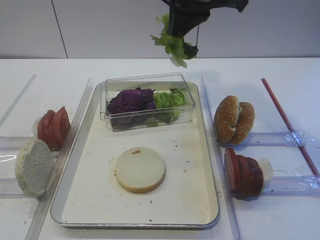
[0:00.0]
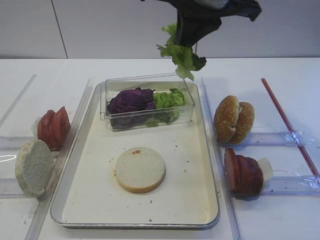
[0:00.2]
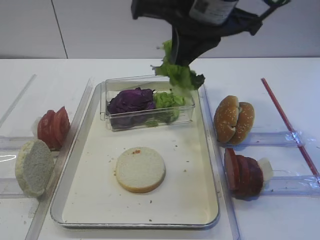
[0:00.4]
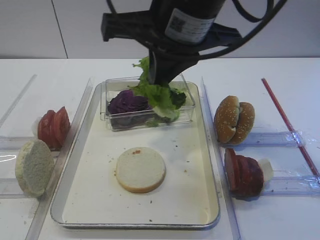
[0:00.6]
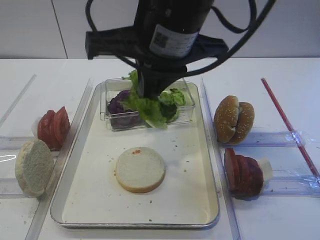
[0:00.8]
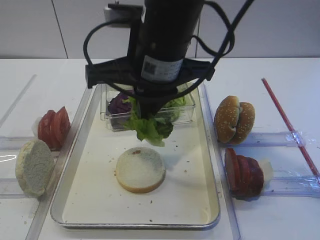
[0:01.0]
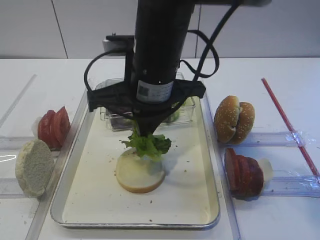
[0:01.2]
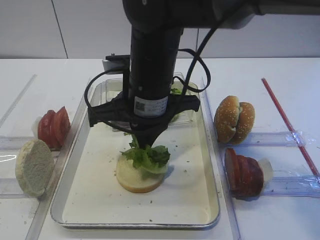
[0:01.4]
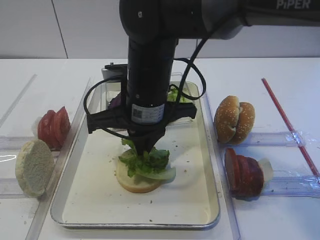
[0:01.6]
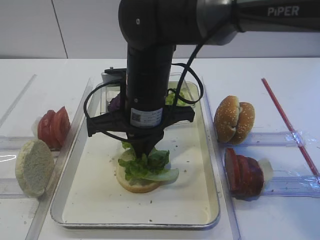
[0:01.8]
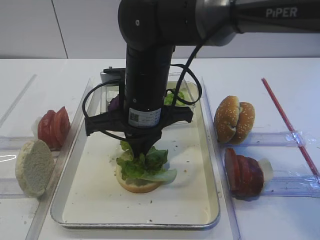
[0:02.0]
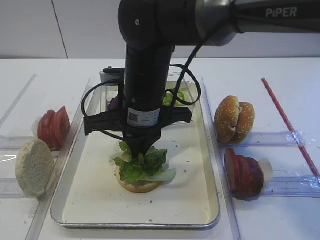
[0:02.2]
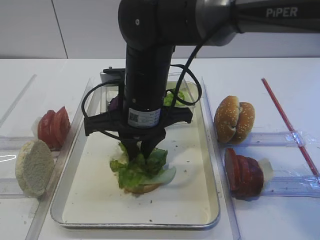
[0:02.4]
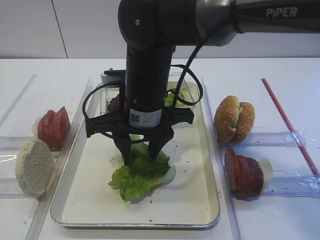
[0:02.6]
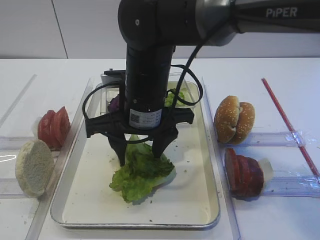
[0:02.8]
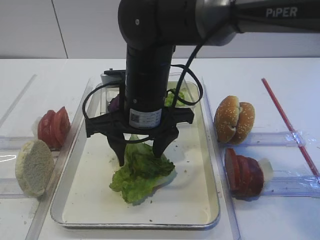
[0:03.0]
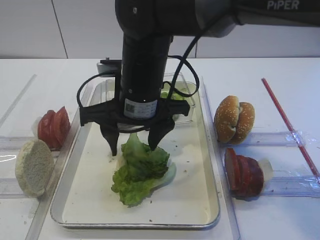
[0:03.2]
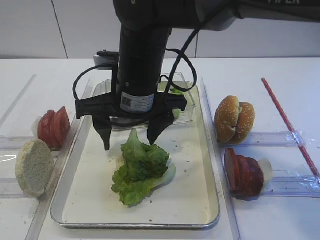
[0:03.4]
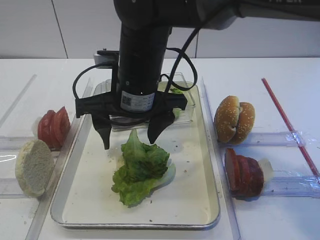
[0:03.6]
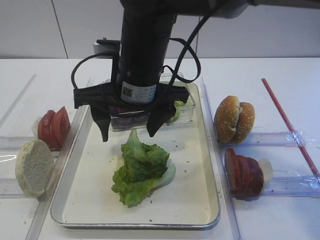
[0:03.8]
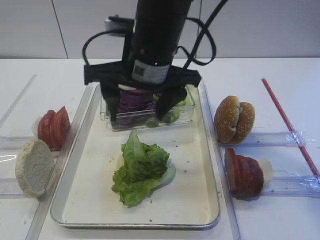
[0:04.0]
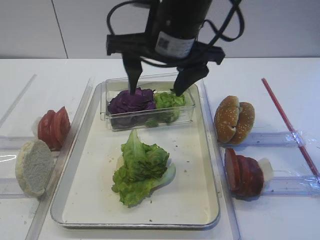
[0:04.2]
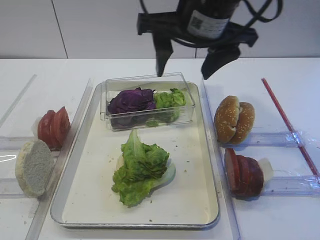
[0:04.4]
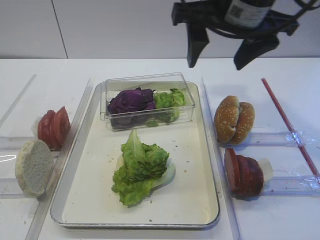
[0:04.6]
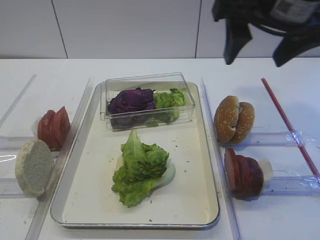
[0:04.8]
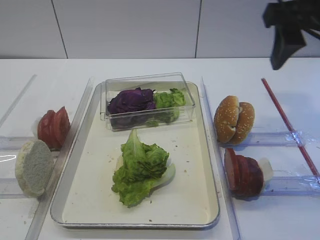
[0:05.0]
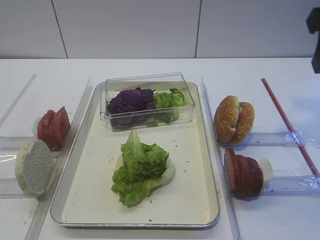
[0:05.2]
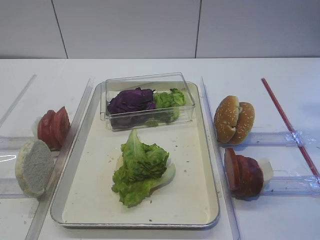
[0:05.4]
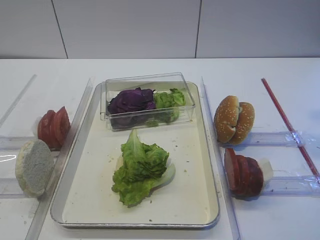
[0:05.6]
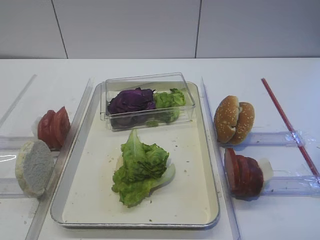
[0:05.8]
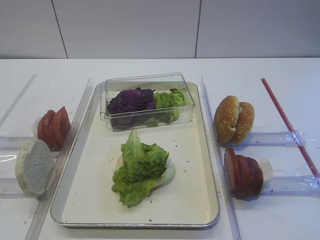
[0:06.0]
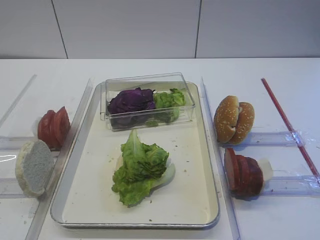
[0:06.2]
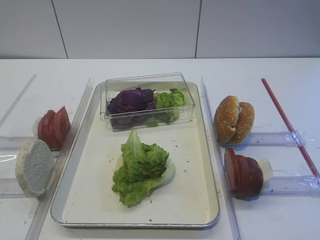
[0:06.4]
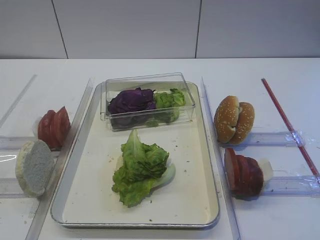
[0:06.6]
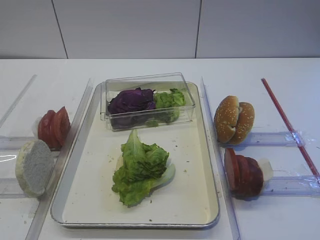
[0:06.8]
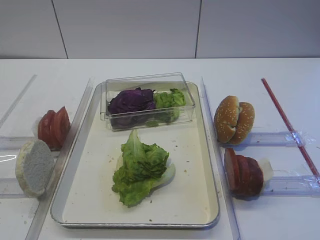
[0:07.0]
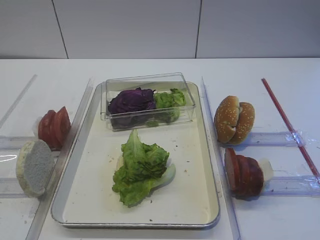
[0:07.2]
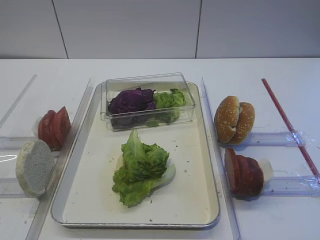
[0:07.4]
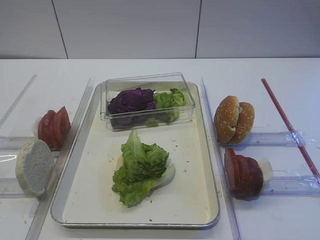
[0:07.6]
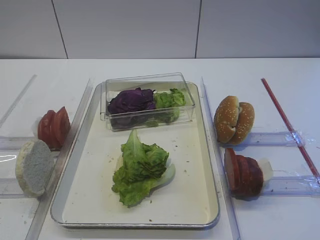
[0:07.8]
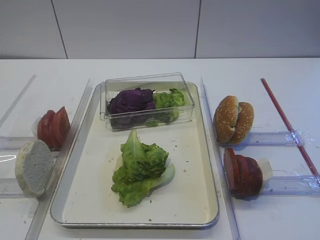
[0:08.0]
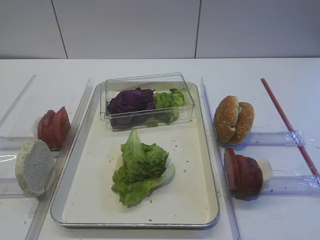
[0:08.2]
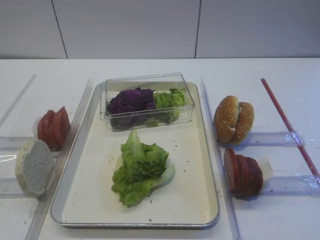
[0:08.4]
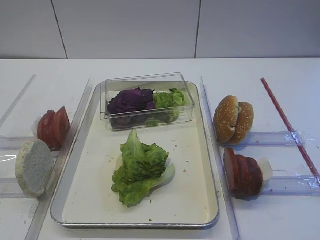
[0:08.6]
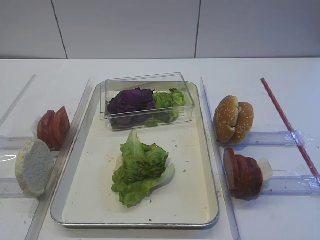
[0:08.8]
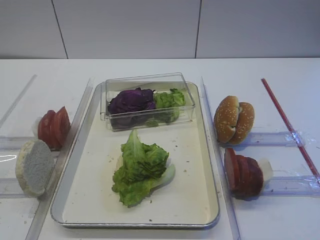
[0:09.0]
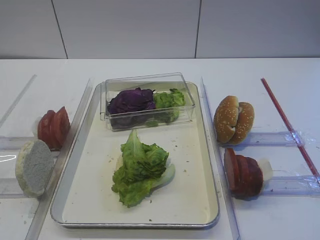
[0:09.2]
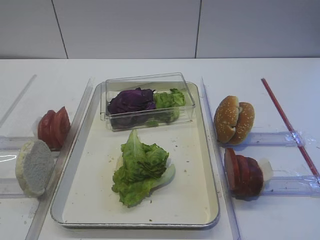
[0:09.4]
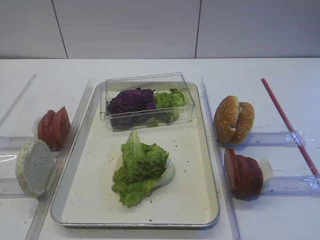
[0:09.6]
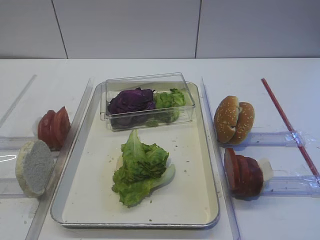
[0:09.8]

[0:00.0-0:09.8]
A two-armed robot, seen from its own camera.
Step, 0:00.0 to 0:03.2: Place the lettuce leaf on the bread slice with the right gripper.
0:00.0 to 0:01.4: The right gripper shifts roughly 15 cm downward, to the left and backward.
0:01.4 to 0:02.8: The right gripper opens up.
0:02.8 to 0:04.2: The right gripper is displaced upward by roughly 10 cm.
0:04.2 to 0:05.6: The right gripper goes approximately 25 cm to the right and backward.

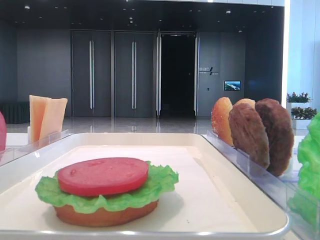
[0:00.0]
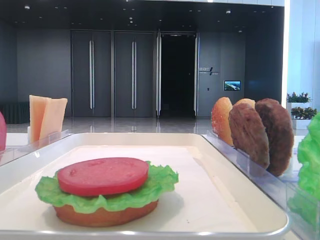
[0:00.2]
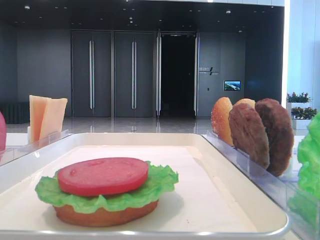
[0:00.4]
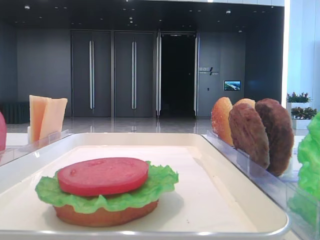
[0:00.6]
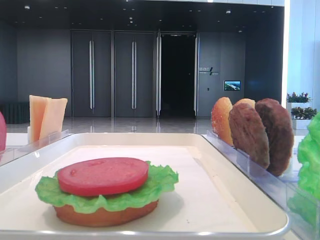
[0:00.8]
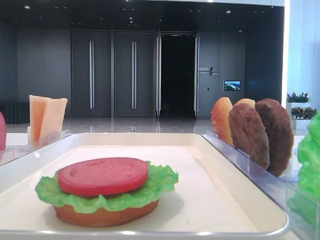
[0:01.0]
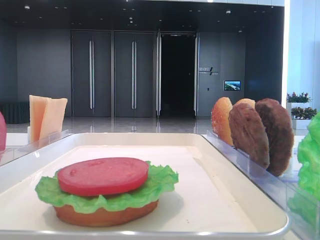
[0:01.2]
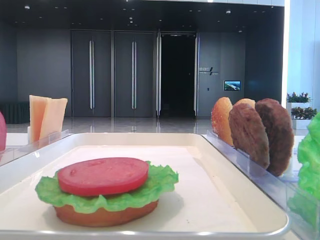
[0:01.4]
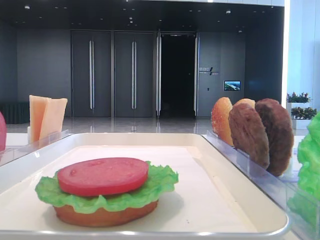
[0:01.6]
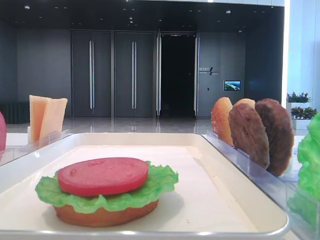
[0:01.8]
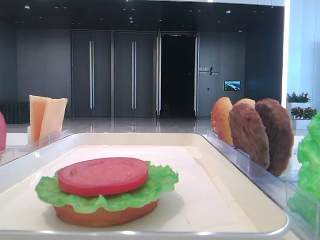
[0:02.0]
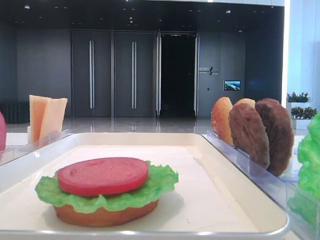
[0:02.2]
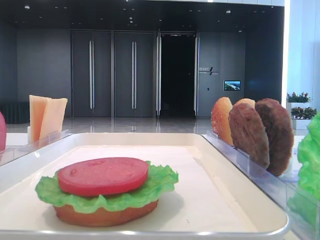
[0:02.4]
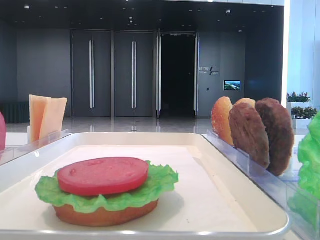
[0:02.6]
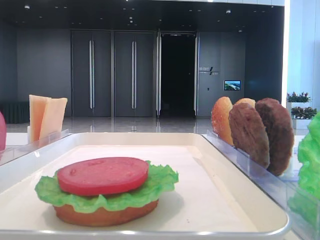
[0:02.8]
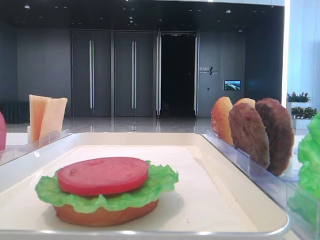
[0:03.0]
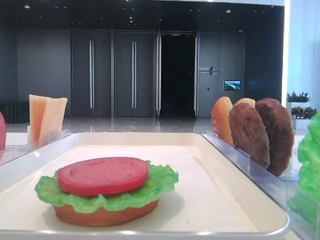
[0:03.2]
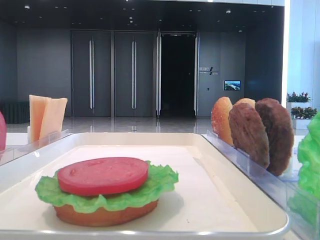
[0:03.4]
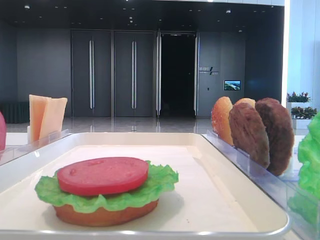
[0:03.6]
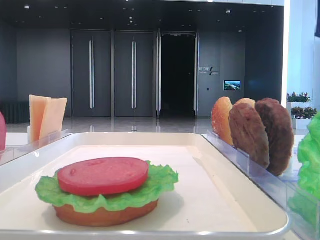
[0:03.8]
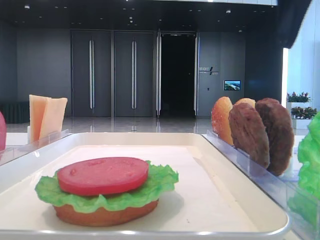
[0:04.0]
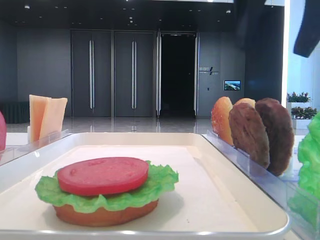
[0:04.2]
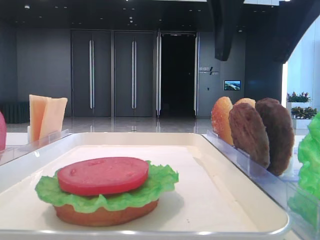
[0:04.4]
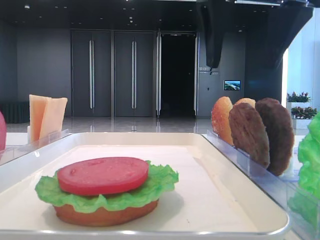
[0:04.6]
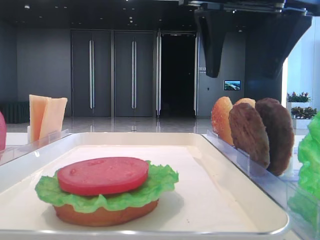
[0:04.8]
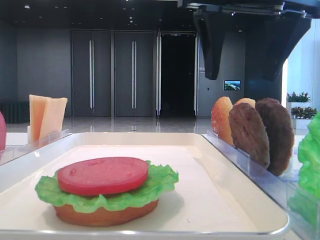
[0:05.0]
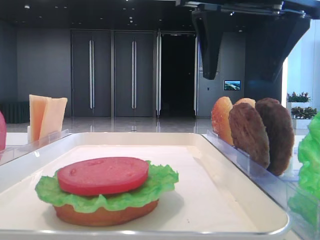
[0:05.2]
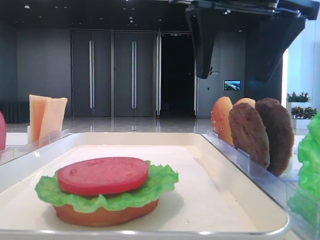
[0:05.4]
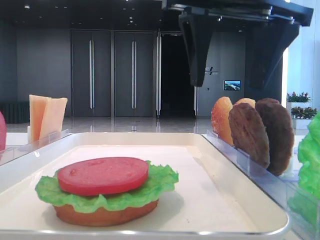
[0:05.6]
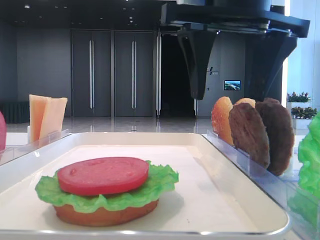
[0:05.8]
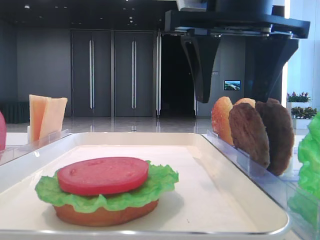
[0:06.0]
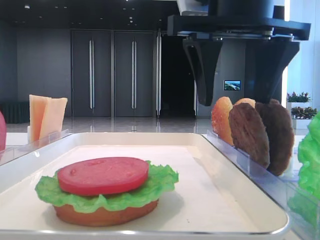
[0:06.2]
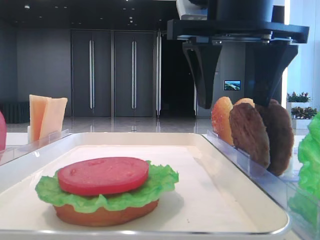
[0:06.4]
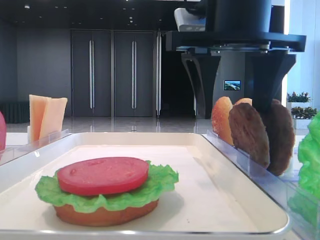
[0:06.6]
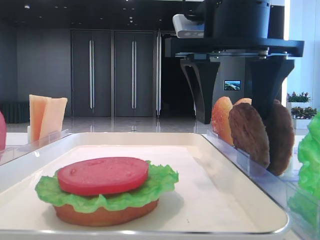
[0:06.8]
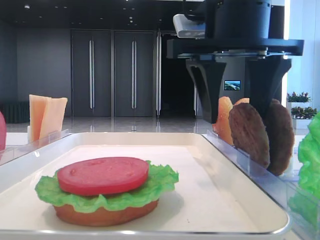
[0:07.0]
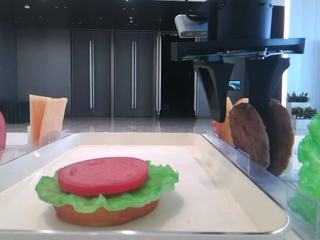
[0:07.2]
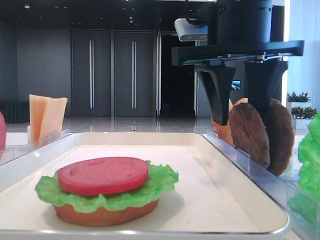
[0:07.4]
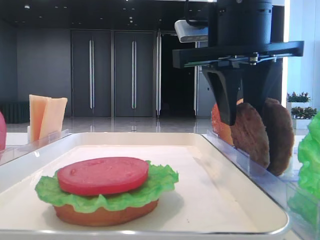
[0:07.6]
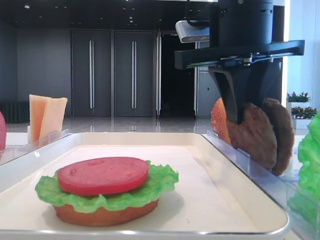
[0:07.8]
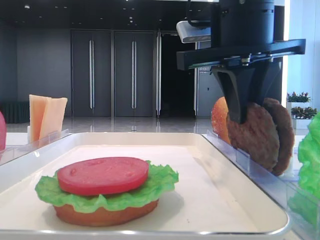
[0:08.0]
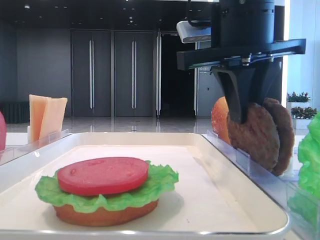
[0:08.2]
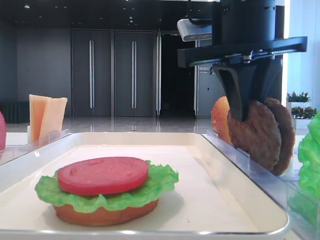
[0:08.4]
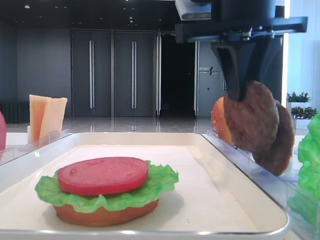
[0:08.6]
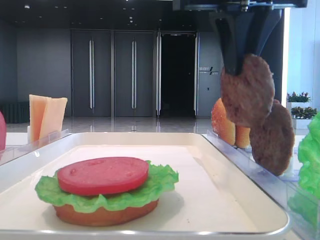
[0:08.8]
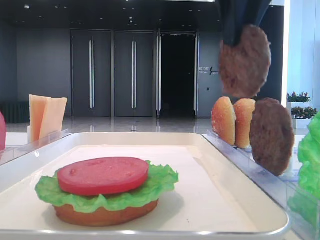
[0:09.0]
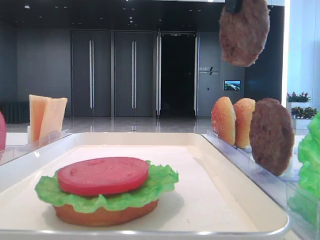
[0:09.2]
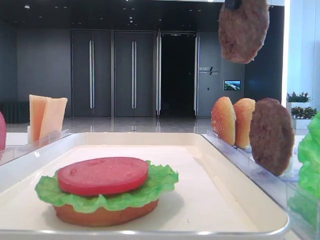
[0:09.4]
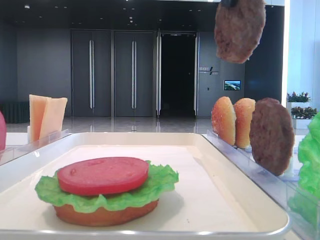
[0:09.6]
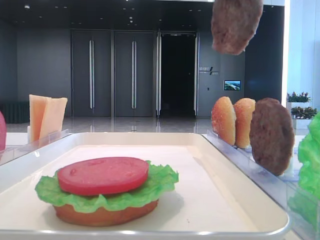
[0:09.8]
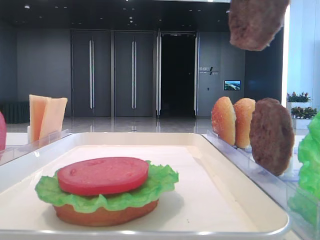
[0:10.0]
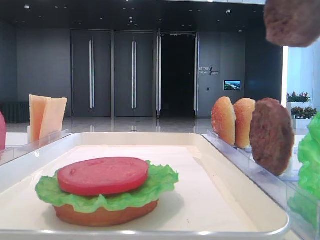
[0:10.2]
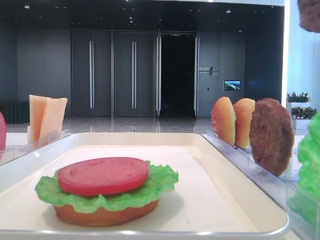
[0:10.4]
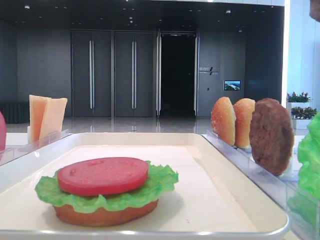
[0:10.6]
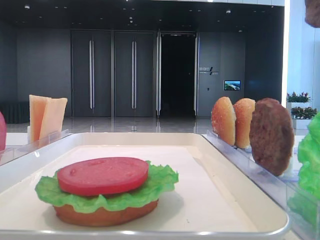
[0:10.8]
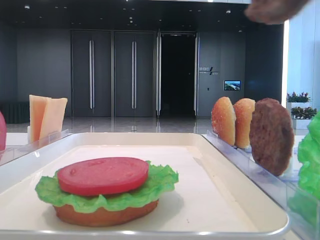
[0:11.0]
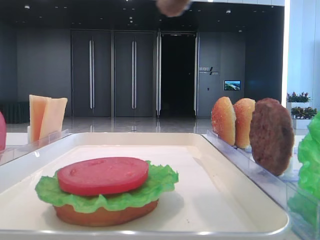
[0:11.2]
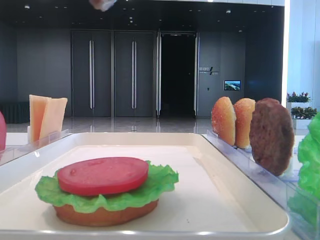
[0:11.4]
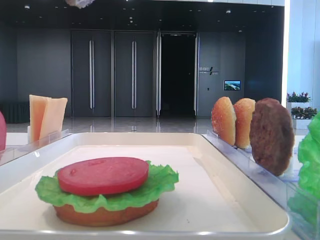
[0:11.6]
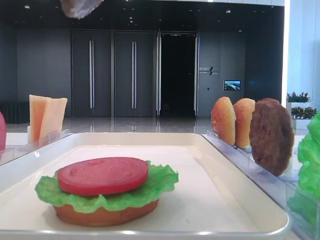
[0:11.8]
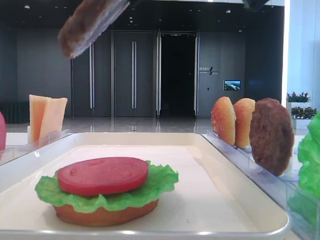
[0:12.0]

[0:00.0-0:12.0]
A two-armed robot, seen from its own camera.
Step, 0:00.0 to 0:08.2: Grab the patty with the right hand.
0:03.0 to 0:04.4: The right gripper is displaced to the left by roughly 20 cm.
0:04.4 to 0:06.0: The right gripper ends up approximately 5 cm from where it was.
0:06.0 to 0:07.6: The right gripper closes its fingers.
0:07.6 to 0:09.0: The right gripper moves upward, about 10 cm.
0:09.0 to 0:10.4: The right gripper shifts approximately 15 cm backward and to the right.
0:10.4 to 0:12.0: The right gripper travels to the left and downward by approximately 10 cm.

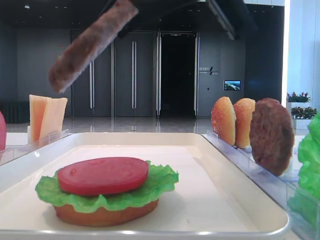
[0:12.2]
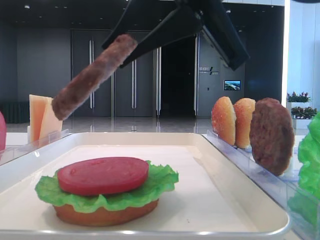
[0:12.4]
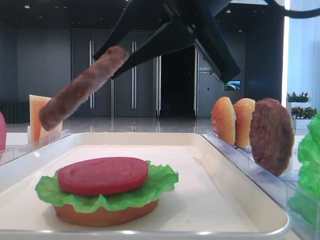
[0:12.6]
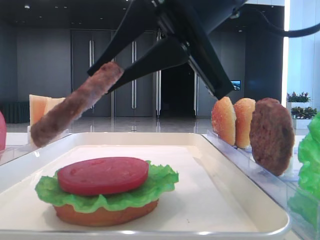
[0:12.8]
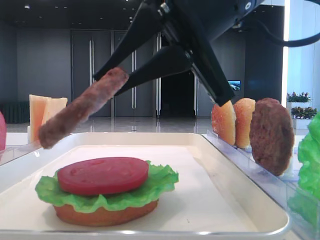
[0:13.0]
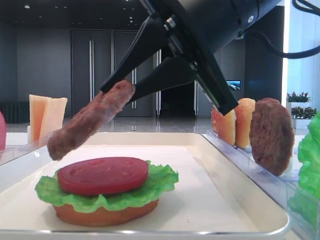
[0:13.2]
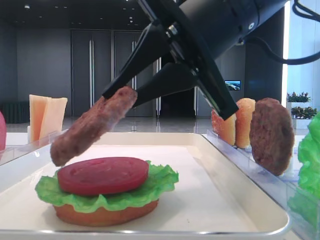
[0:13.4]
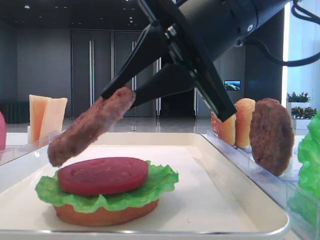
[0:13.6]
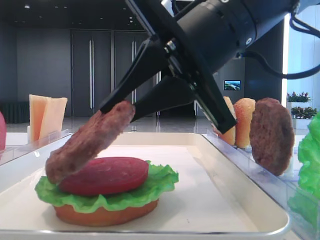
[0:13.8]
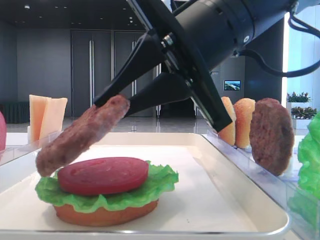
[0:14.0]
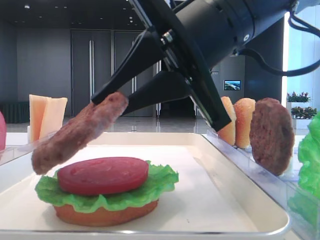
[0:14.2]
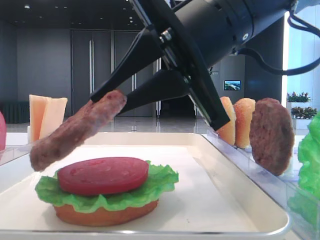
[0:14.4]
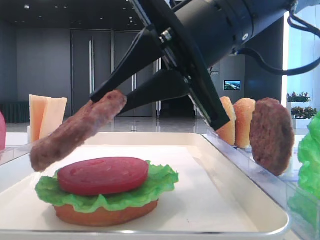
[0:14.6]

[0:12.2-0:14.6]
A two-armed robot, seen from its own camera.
0:12.2 to 0:13.4: The right gripper shifts roughly 5 cm downward.
0:13.4 to 0:14.6: Both grippers stay put.
